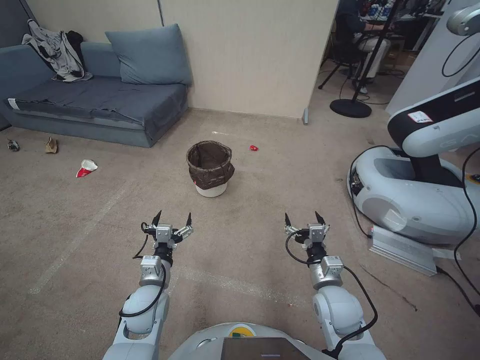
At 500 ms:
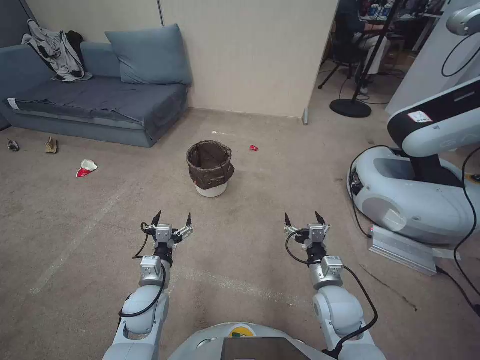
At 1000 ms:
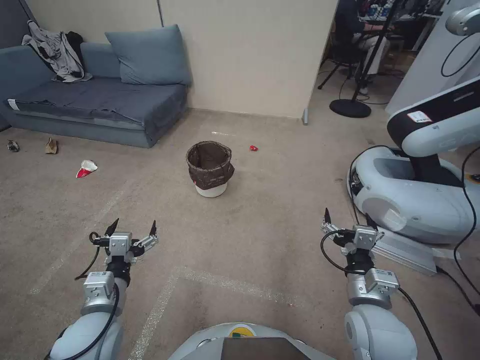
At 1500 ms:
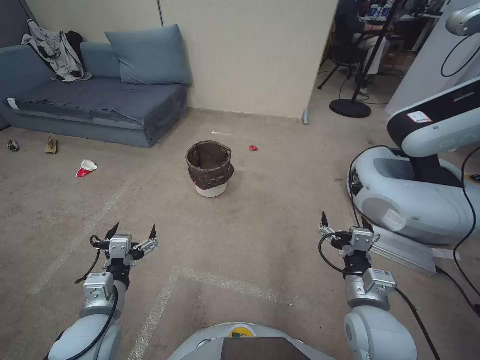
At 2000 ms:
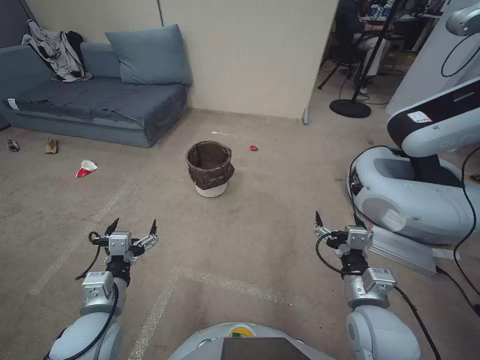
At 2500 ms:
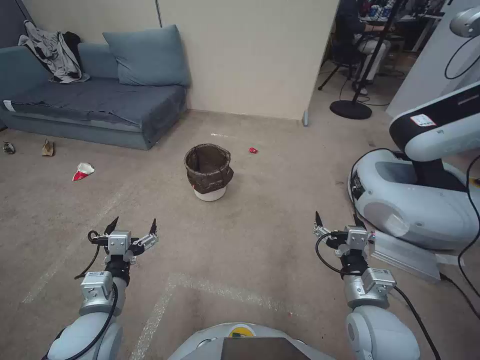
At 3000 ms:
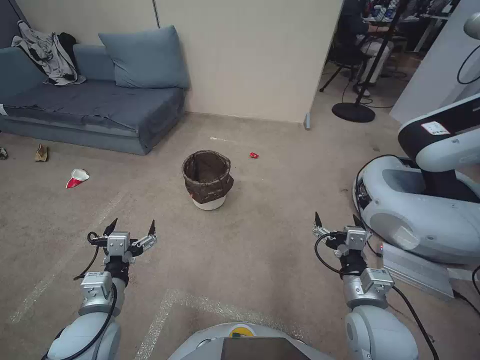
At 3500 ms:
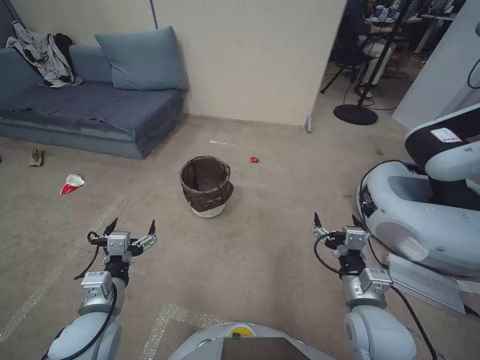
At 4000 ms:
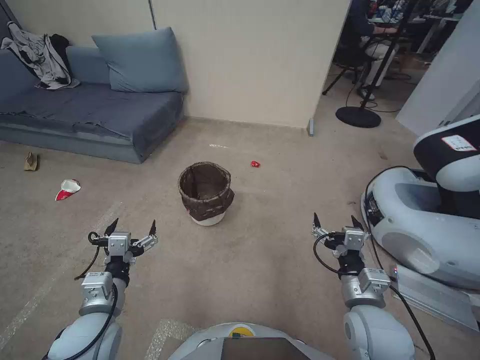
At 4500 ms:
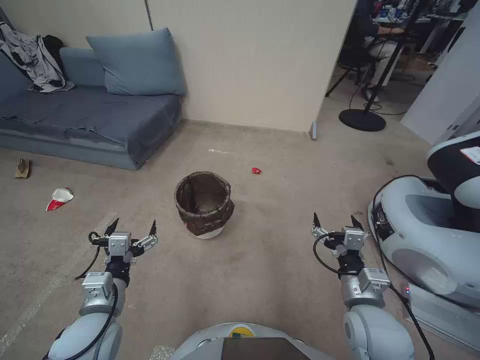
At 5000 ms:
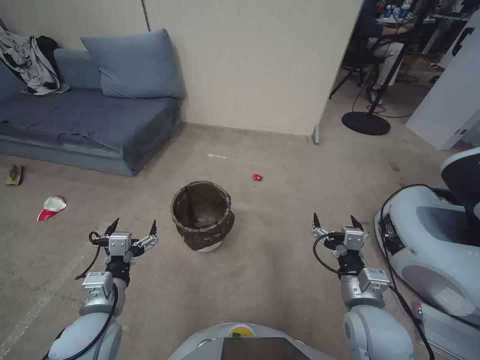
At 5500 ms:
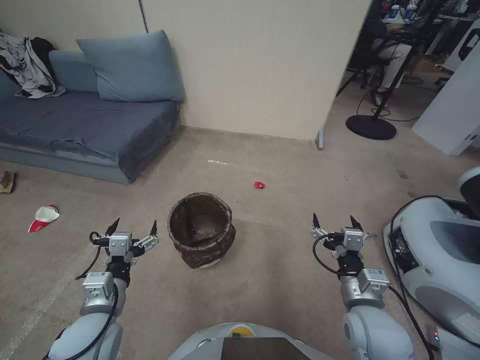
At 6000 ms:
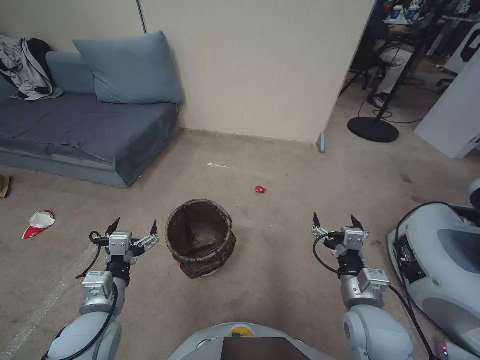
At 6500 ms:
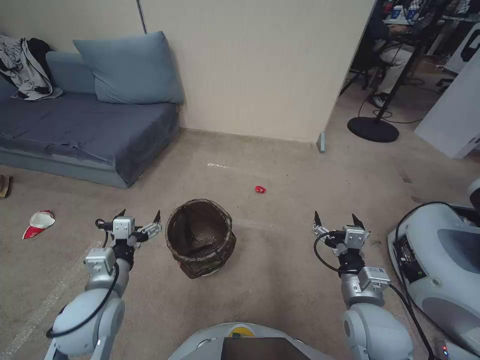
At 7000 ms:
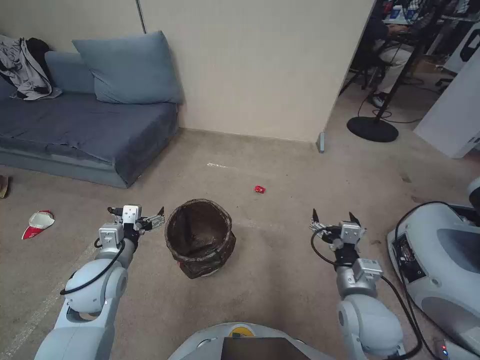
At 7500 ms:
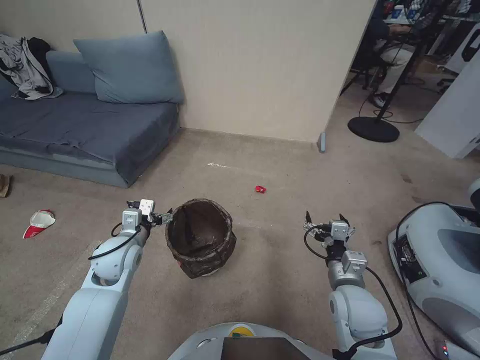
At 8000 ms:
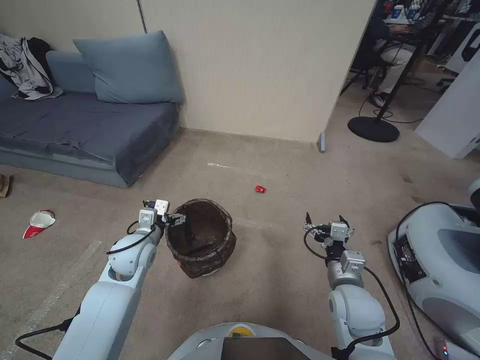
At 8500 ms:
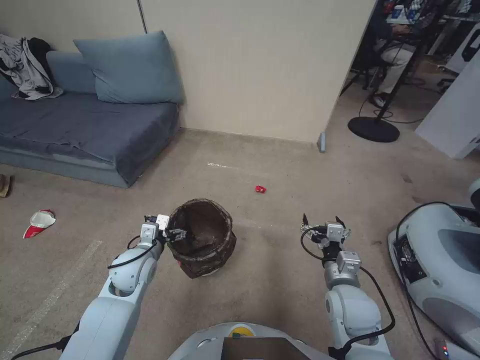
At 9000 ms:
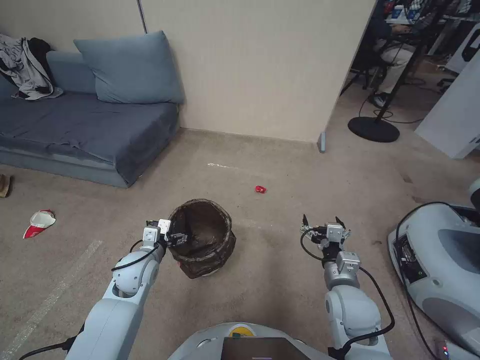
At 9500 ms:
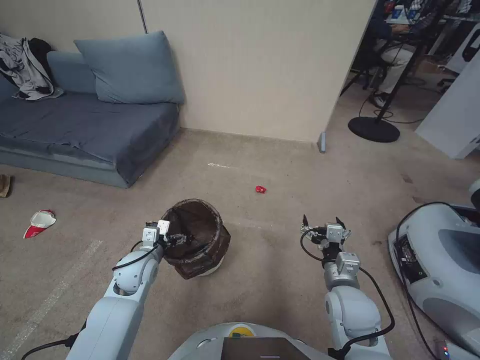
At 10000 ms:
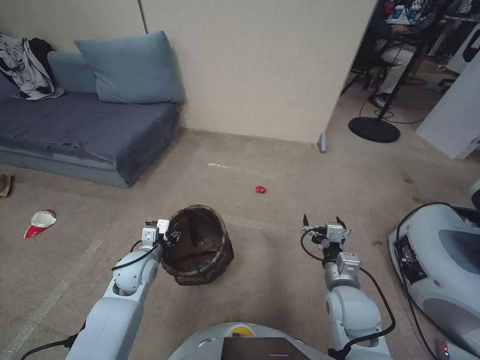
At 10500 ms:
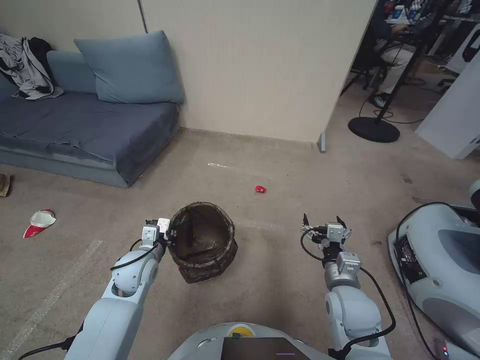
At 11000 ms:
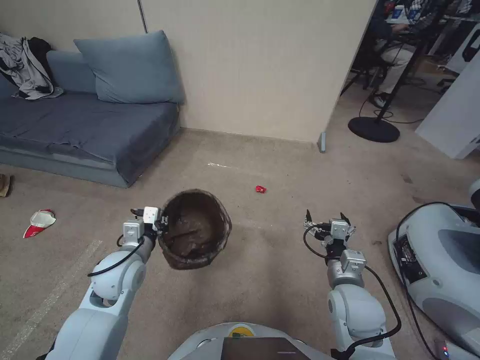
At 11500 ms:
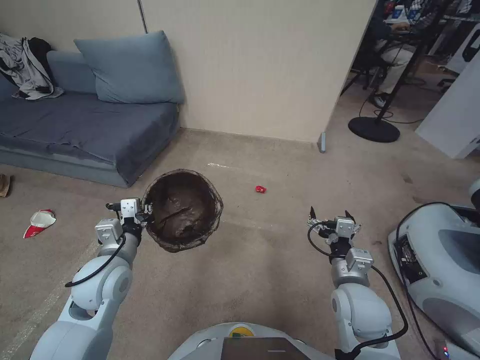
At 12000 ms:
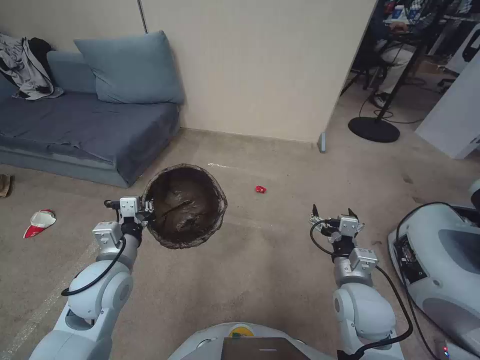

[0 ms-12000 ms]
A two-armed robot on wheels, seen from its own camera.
Task of the whole recording: Pick up the trash bin, then pick up the garbage from the floor and place it into the trash bin.
6000 ms to 8000 ms: The left gripper heads forward, covering approximately 15 cm. The right gripper changes place by about 5 cm.
8000 ms to 10000 ms: The left gripper is displaced downward by about 5 cm, and closes its fingers.
10000 ms to 12000 ms: The left gripper travels upward and backward by approximately 15 cm, and closes its fingers.

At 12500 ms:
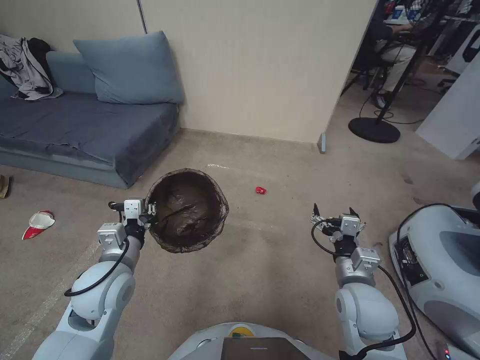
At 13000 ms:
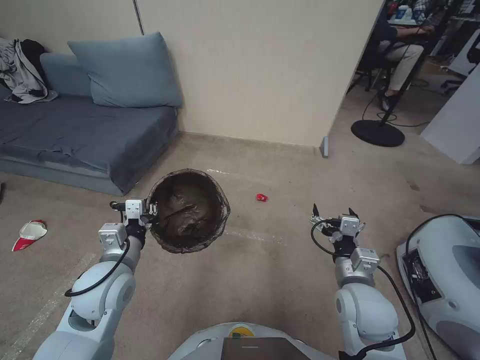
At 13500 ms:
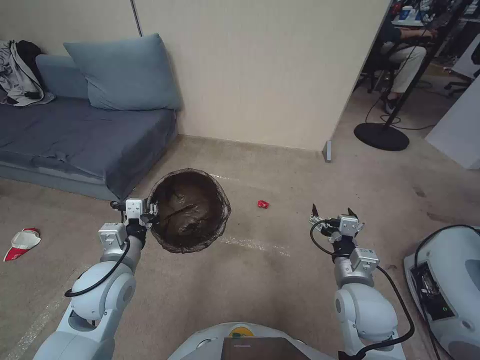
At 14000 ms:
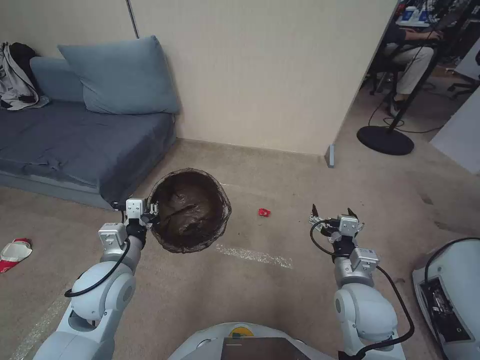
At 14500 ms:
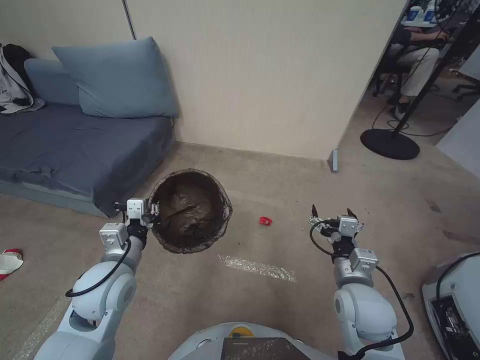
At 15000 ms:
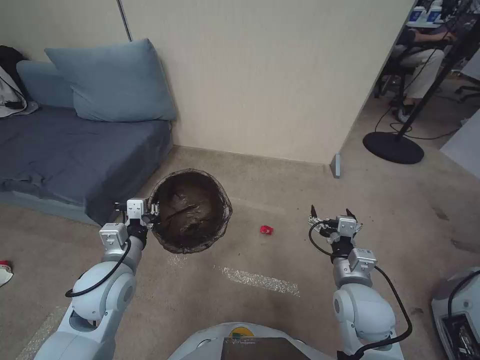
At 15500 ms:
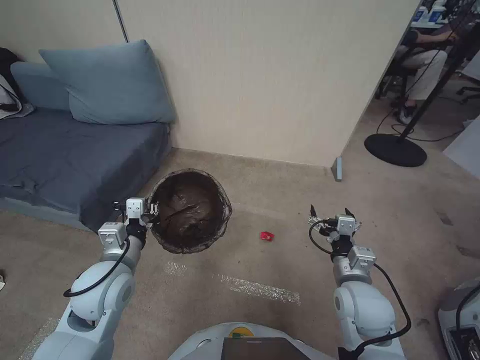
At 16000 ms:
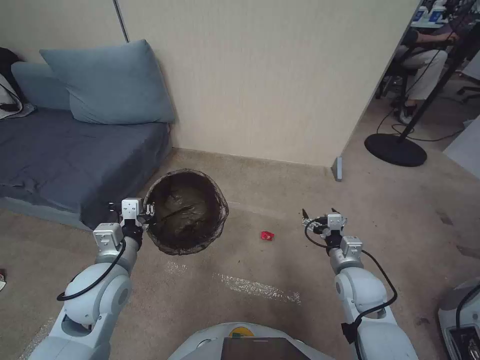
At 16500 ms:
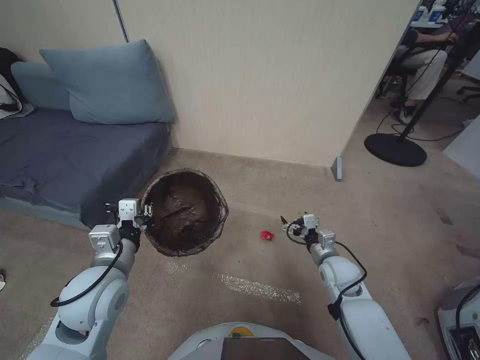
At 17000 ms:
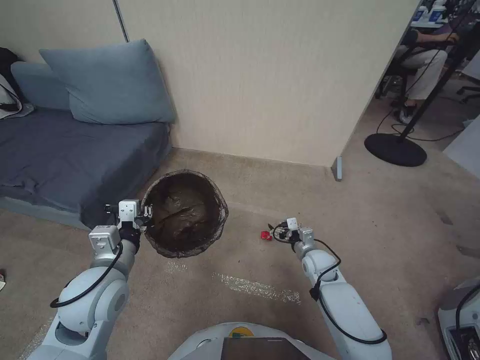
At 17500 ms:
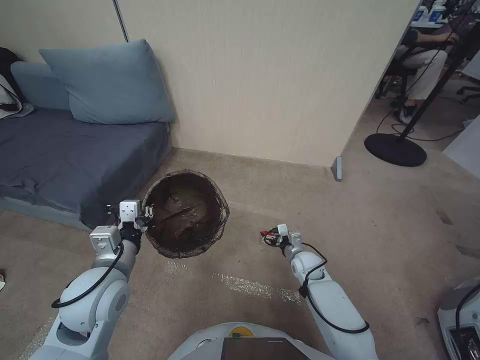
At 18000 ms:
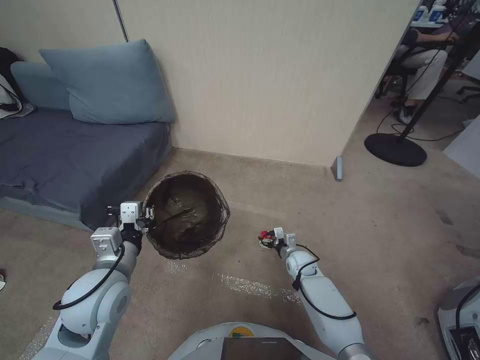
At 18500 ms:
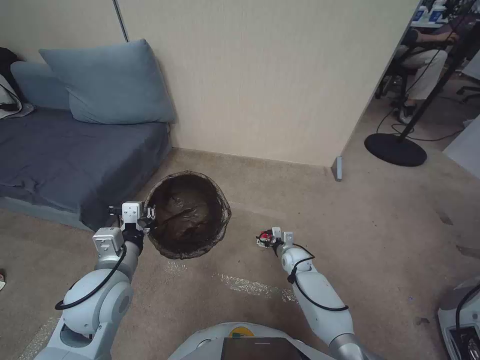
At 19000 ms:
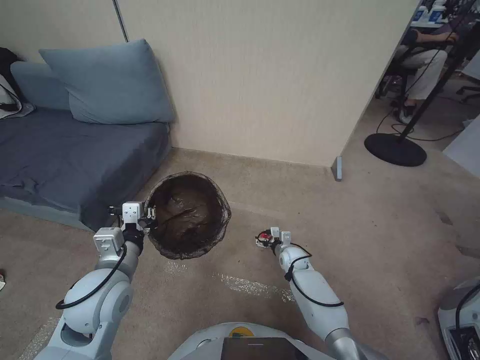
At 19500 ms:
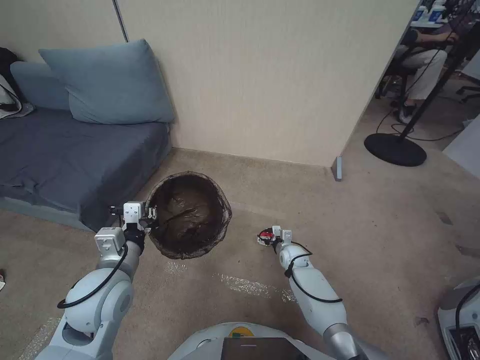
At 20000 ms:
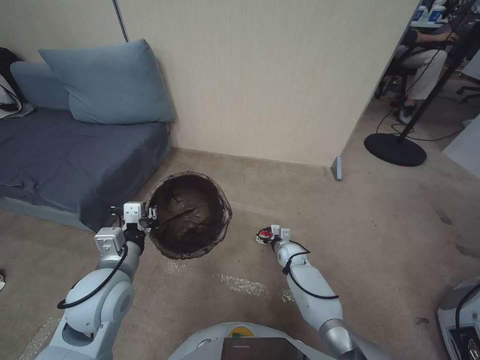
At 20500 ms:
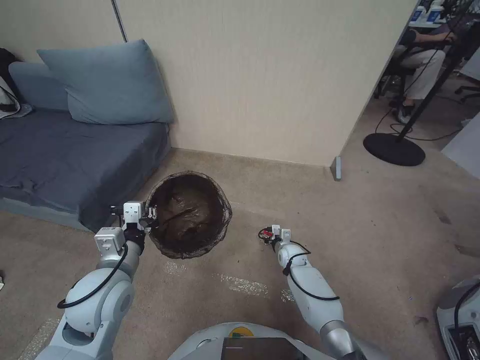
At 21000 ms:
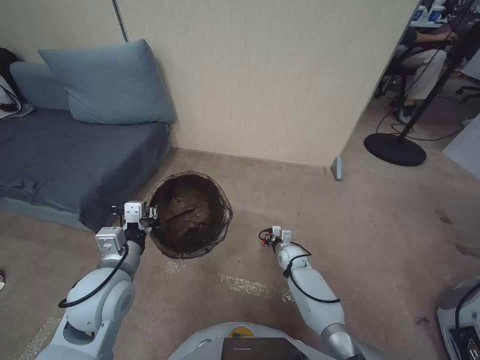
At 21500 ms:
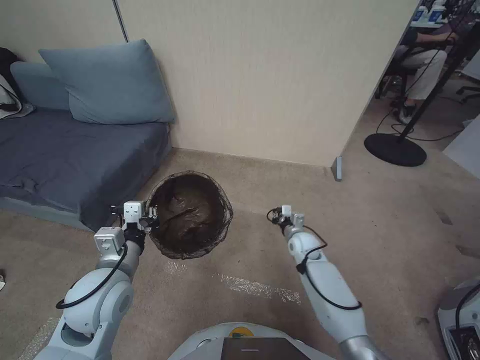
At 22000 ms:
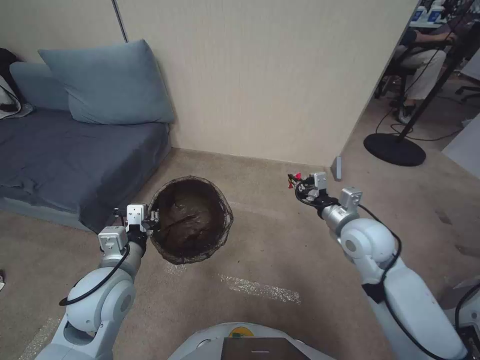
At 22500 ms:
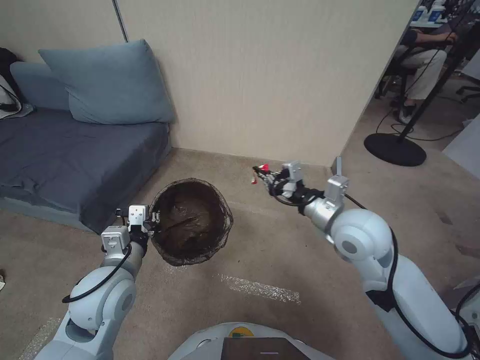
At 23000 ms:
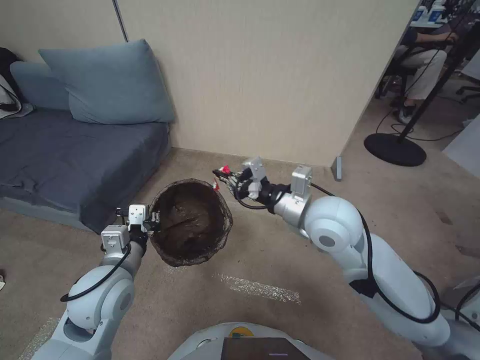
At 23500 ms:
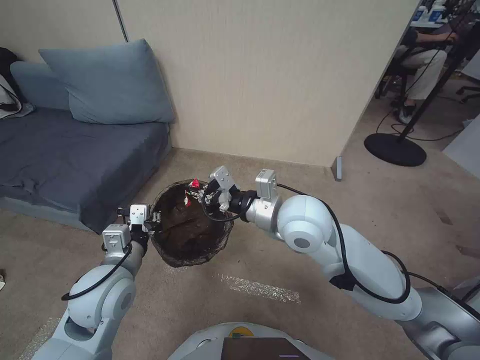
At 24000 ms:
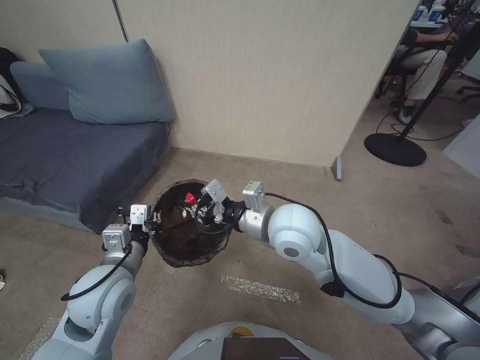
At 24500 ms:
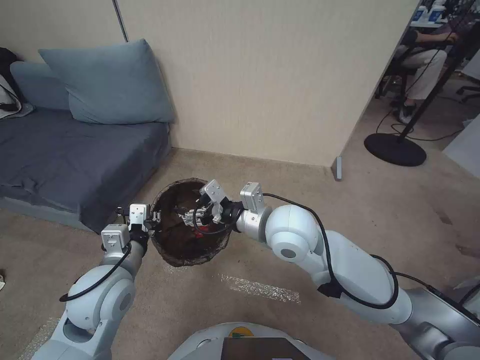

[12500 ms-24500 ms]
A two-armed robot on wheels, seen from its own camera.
Task of the whole recording: Pick up the trash bin, then pick up the garbage from the floor and place it into the trash bin.
14500 ms to 16500 ms: The right gripper goes about 10 cm forward and downward.
16500 ms to 18500 ms: The right gripper goes roughly 20 cm downward, forward and to the left.
18500 ms to 20500 ms: The right gripper closes up.
20500 ms to 22500 ms: The right gripper is displaced upward by roughly 40 cm, and closes up.
22500 ms to 24500 ms: The right gripper moves to the left, some 15 cm, and opens up.

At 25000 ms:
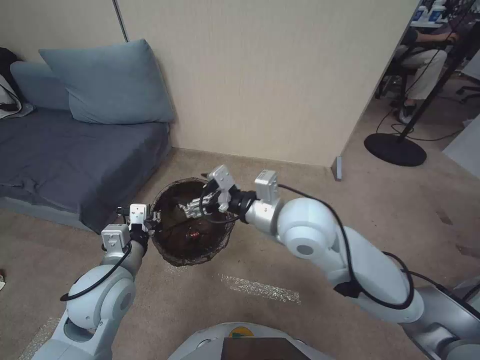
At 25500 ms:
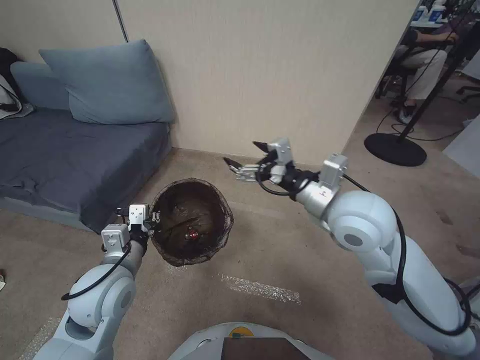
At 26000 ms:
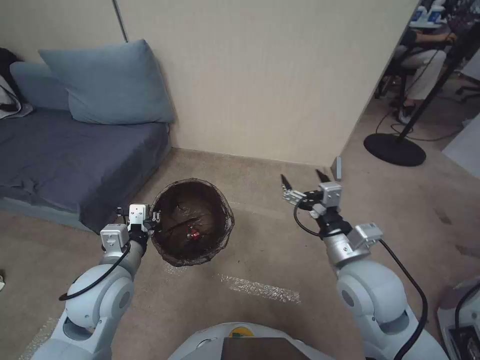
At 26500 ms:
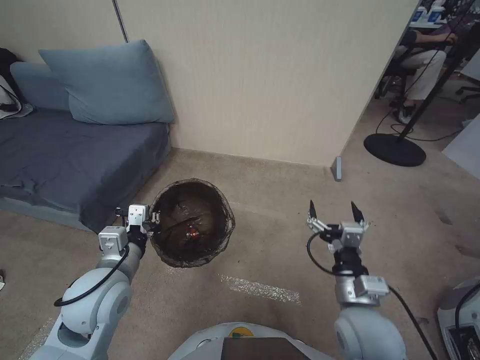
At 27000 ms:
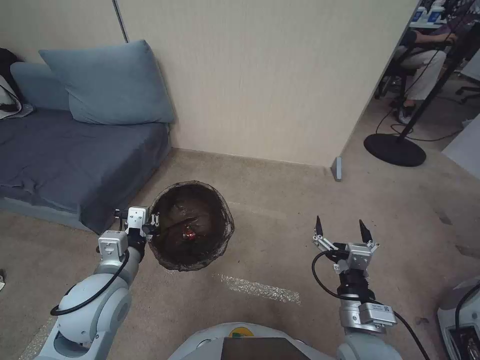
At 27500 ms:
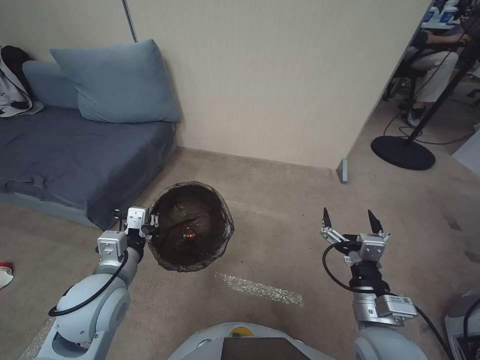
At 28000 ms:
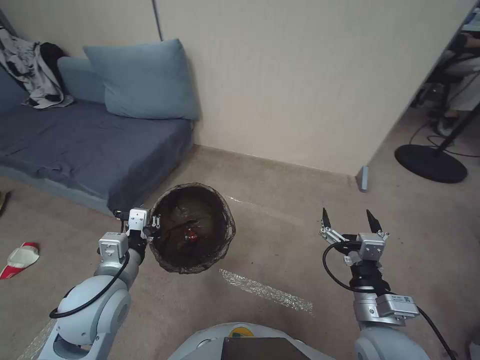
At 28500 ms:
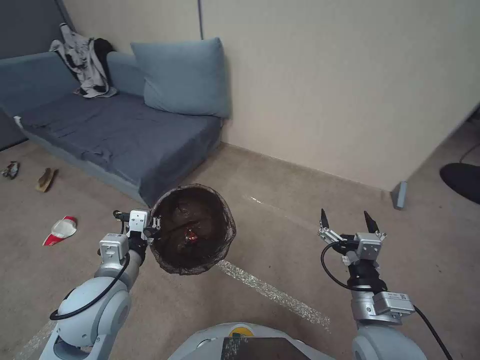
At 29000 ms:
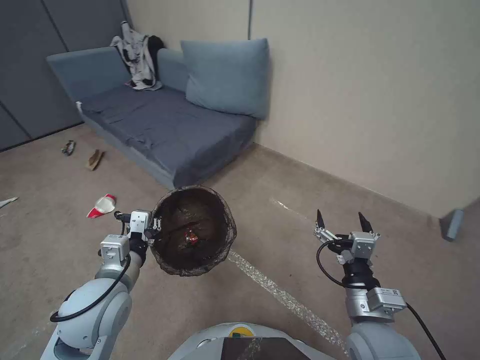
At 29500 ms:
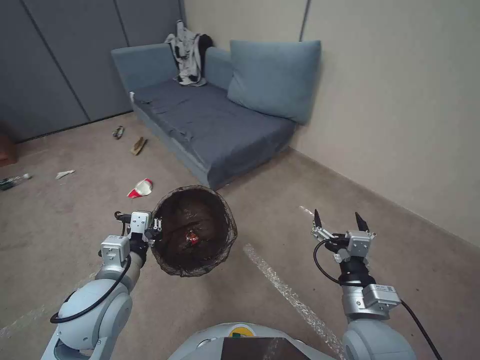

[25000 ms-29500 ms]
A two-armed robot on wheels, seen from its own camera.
Task of the whole recording: Pick up the trash bin, then pick up the garbage from the floor and place it into the trash bin.
25000 ms to 27000 ms: The right gripper heads backward, downward and to the right, covering about 30 cm.
